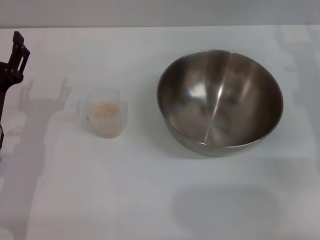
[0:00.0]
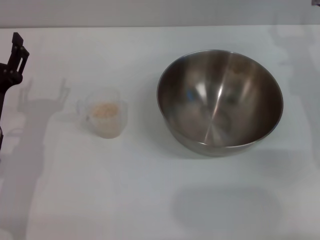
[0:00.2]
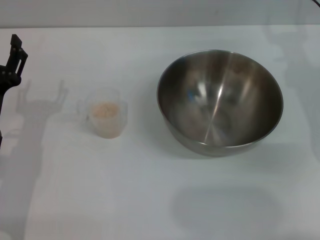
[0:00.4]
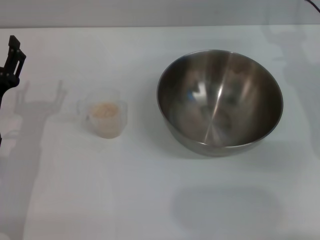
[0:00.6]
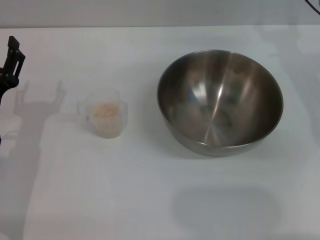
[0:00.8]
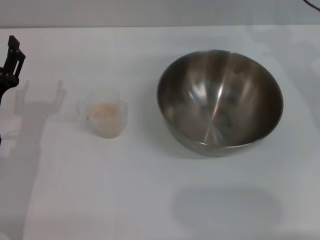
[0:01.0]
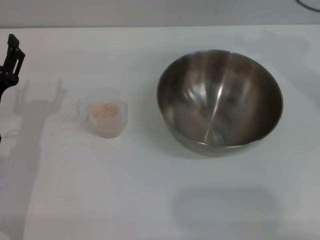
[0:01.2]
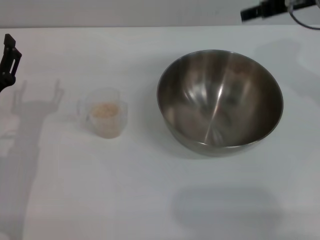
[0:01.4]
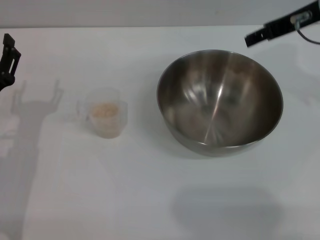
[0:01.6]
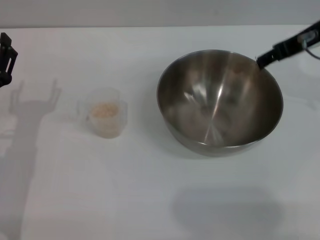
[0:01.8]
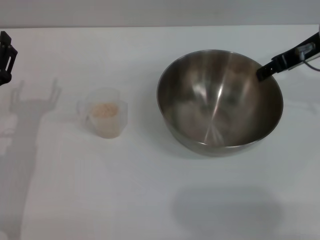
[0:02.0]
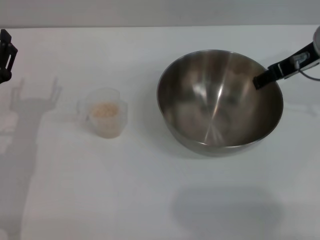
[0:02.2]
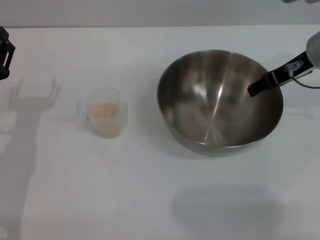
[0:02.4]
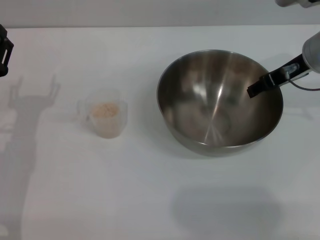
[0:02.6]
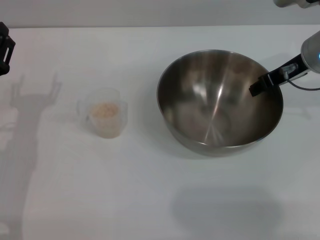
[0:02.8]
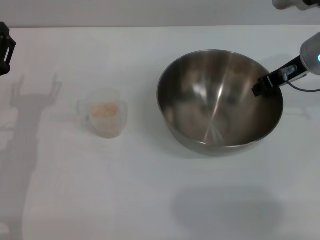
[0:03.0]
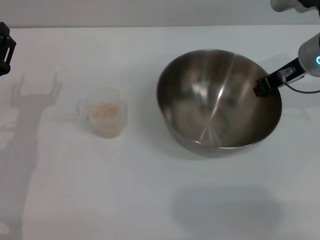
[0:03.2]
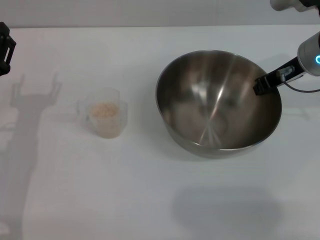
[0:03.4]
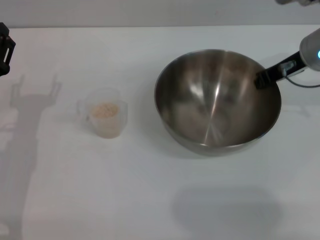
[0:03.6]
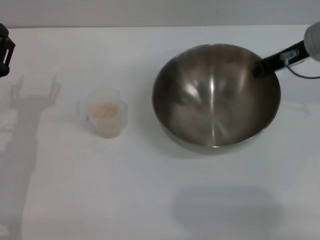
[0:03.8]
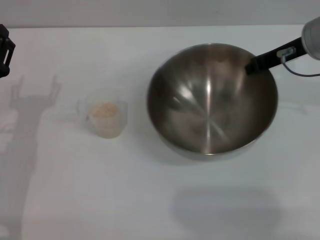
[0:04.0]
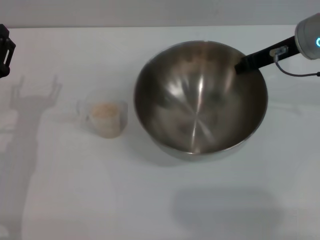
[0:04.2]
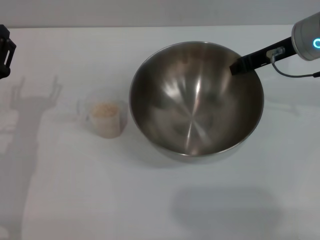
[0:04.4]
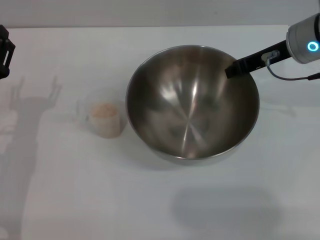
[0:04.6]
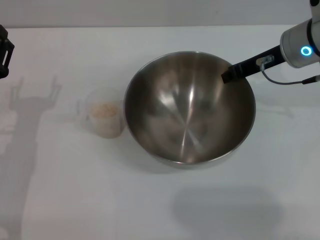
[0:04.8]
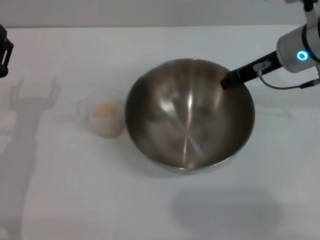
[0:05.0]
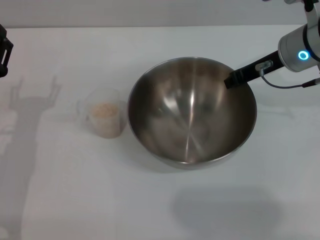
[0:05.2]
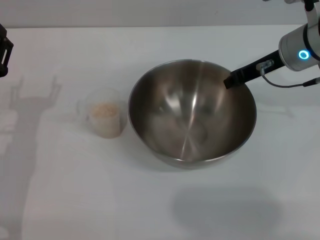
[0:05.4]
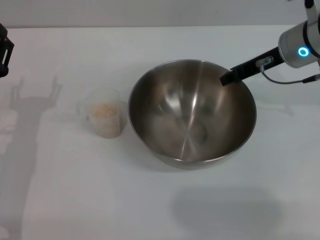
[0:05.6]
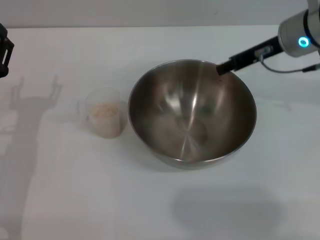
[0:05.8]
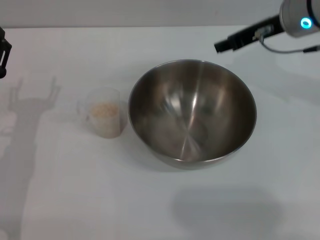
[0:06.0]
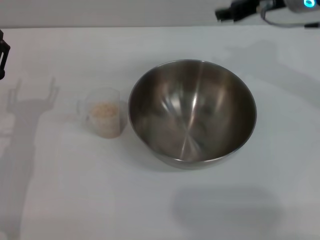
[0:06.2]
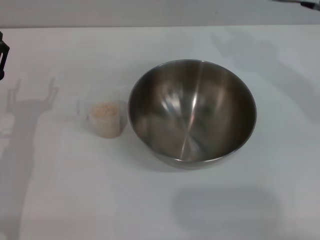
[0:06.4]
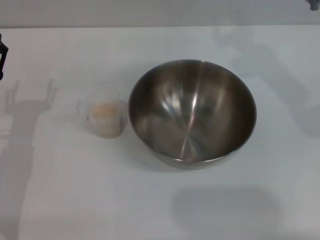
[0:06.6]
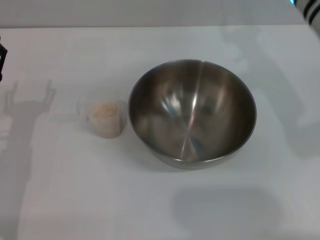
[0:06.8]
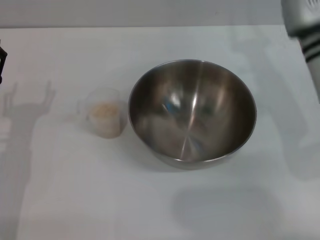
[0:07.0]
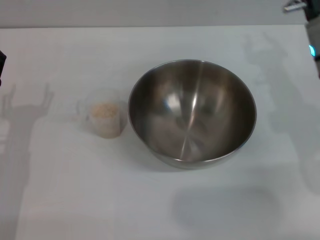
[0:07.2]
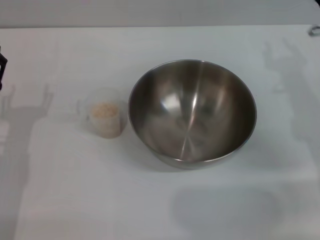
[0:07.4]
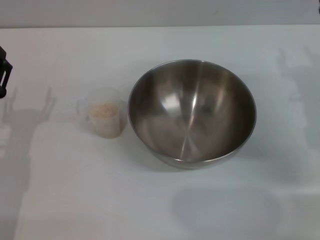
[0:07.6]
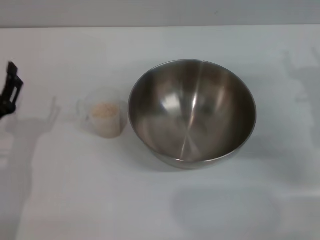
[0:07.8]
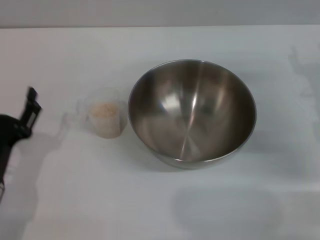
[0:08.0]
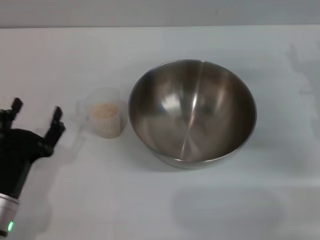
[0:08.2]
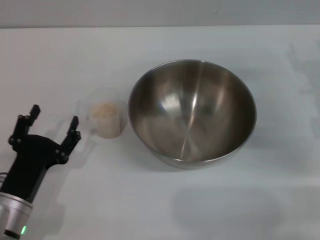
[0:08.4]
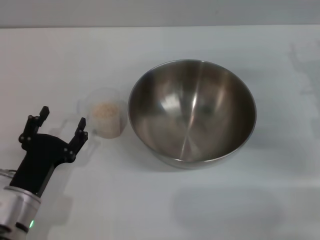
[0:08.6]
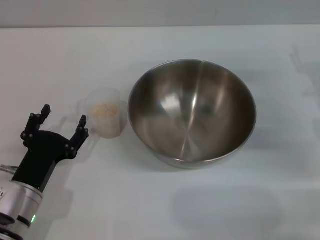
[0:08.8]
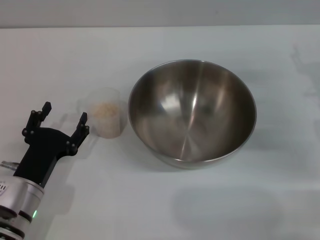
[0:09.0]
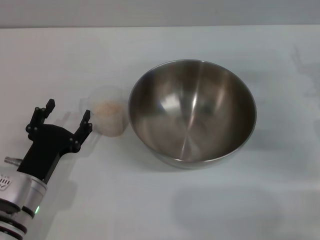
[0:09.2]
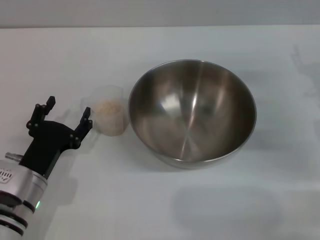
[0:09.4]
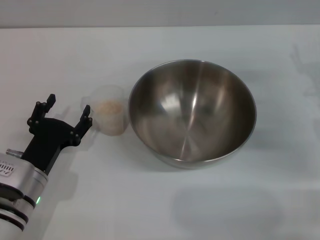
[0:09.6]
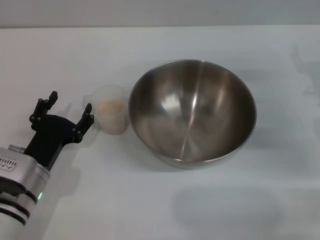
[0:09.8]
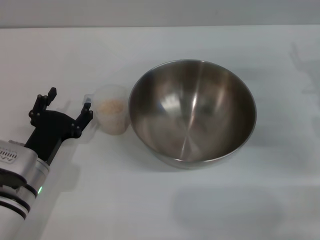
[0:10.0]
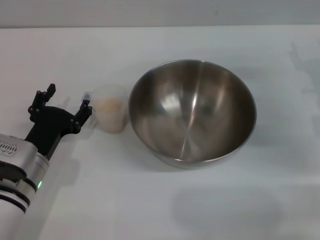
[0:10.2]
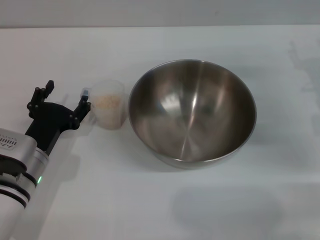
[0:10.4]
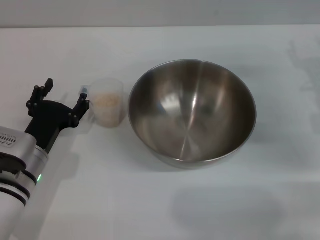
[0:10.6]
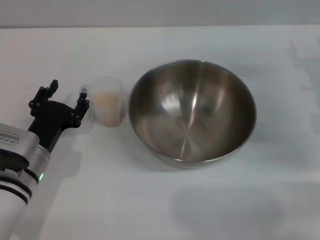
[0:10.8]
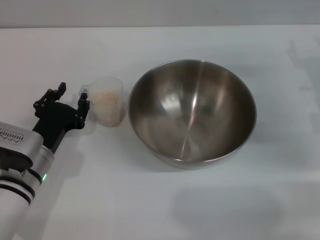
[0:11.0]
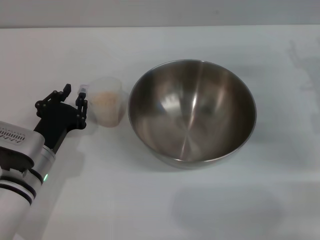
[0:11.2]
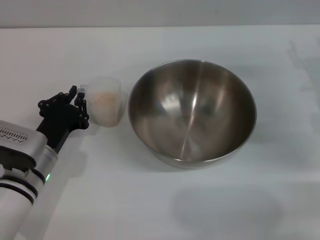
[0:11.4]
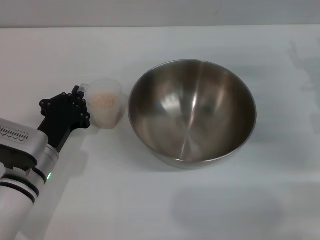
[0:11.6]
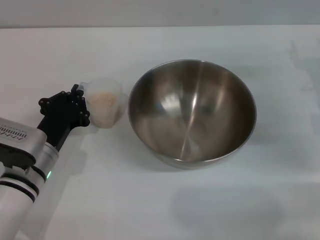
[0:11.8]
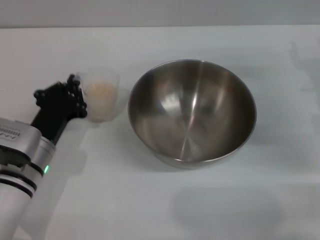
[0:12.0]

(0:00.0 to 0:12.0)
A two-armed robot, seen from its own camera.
Task of the whole recording: Place the bowl in the middle of the table with one hand and pour the rice from the grain cup into it with the other hand.
Step, 0:00.0 - 0:04.2: Pick up the bowl with the right gripper.
Step, 0:04.4 - 0:06.0: Place the bowl in the center of view with the right gripper.
0:00.0 - 0:01.6: The right gripper is displaced upward by roughly 10 cm.
0:01.6 - 0:03.0: The right gripper heads downward, covering approximately 10 cm, and closes.
0:03.0 - 0:04.4: The right gripper closes up.
0:04.4 - 0:06.0: The right gripper opens its fingers.
0:06.0 - 0:07.6: The right gripper travels downward, backward and to the right by about 15 cm.
0:07.6 - 0:09.0: The left gripper heads to the right, covering some 5 cm.
0:09.0 - 0:10.4: The left gripper travels forward by some 5 cm.
0:10.4 - 0:12.0: The left gripper closes up.

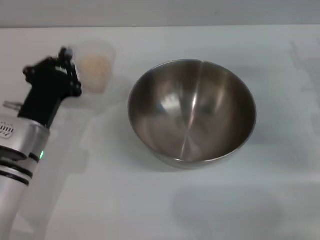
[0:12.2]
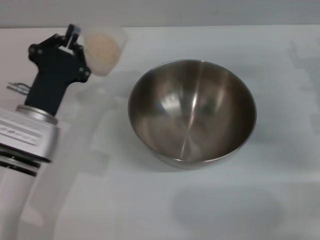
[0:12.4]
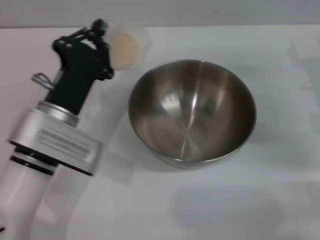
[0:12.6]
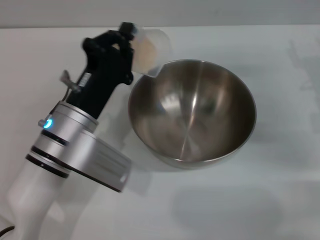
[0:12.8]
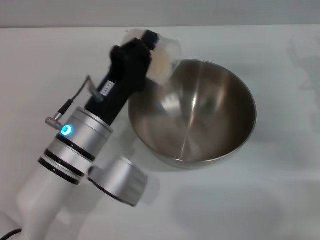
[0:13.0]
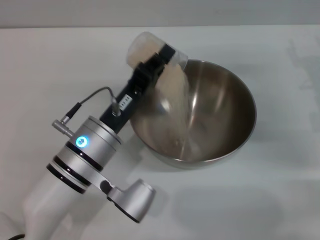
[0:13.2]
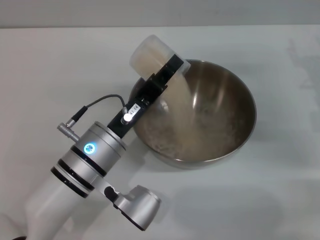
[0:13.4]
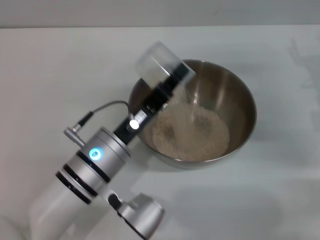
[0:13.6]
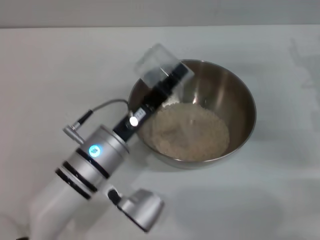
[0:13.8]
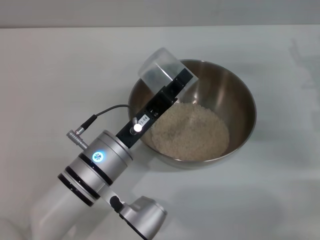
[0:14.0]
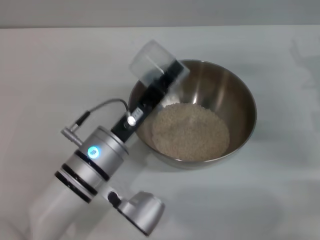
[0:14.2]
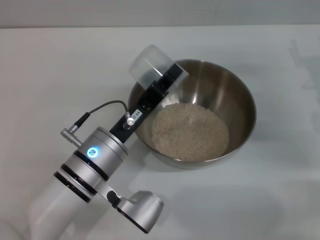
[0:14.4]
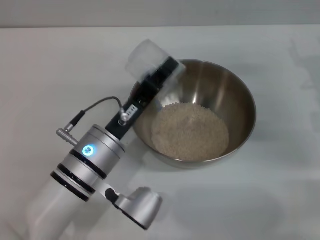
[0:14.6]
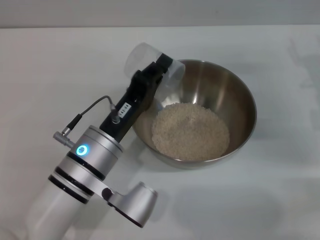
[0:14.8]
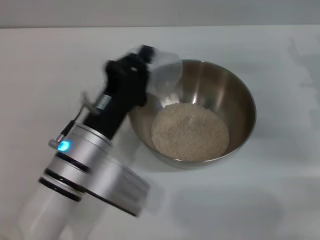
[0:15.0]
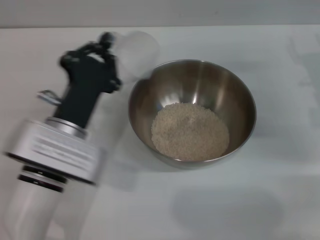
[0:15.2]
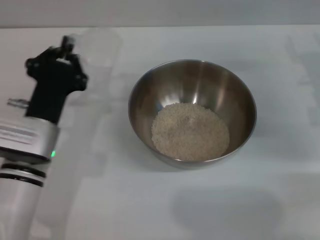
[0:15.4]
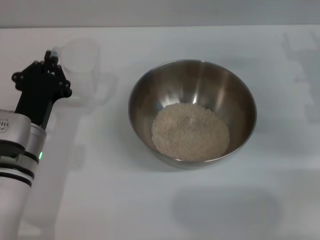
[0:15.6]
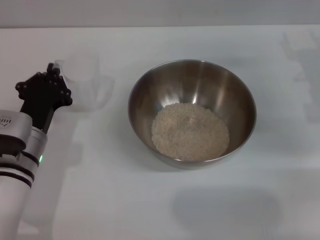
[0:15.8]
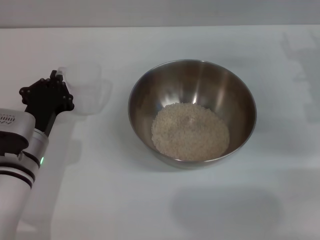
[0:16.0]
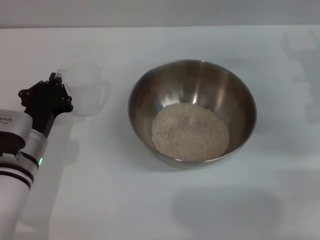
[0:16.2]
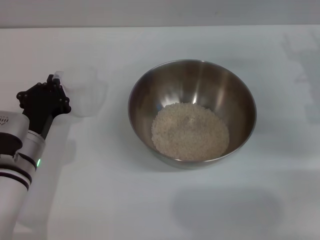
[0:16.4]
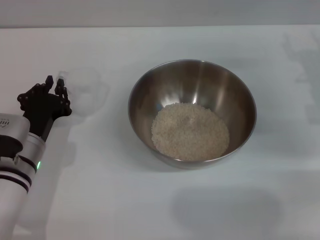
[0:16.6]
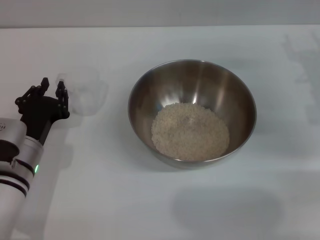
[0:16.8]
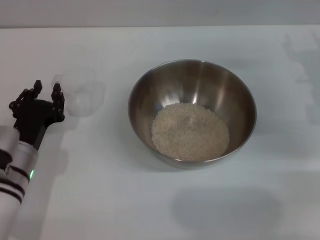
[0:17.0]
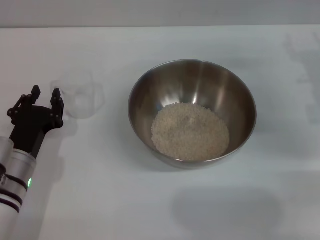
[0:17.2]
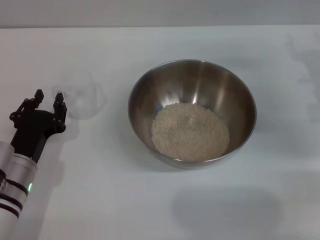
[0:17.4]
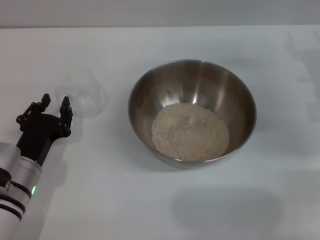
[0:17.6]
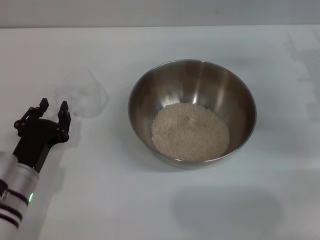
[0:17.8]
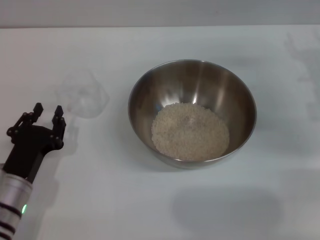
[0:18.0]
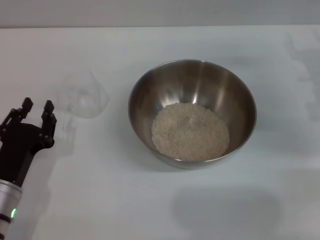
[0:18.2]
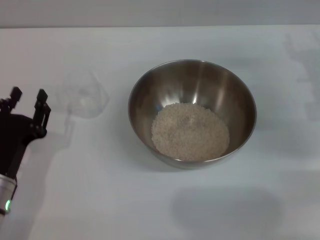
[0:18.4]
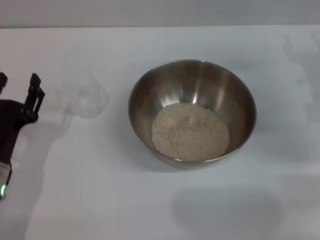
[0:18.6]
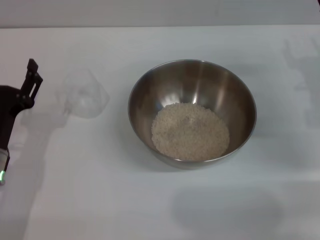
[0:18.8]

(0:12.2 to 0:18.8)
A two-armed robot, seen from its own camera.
Task of the whole recording: Place the bowl in the middle of the table with one hand and pour the rice from the grain cup into it with the other hand.
Step, 0:12.2 - 0:14.6: Pour the rice from the cup into the bowl with the left gripper.
Step, 0:14.8 - 0:18.0: Place the cup on the table with the left gripper.
0:12.2 - 0:13.8: The left gripper travels to the right by approximately 10 cm.
0:13.8 - 0:15.4: The left gripper shifts approximately 5 cm to the left.
0:15.4 - 0:17.2: The left gripper moves approximately 5 cm, and opens its fingers.
0:17.2 - 0:18.8: The grippers stay close to where they were, moving slightly.
